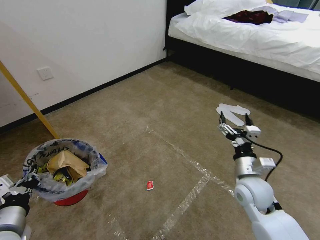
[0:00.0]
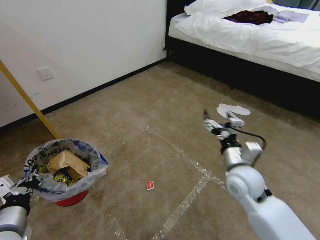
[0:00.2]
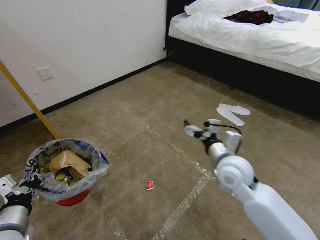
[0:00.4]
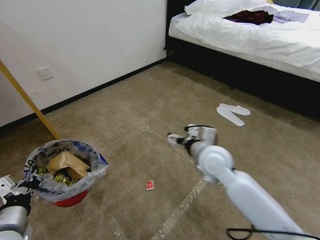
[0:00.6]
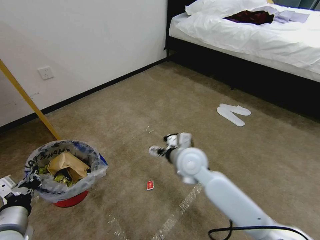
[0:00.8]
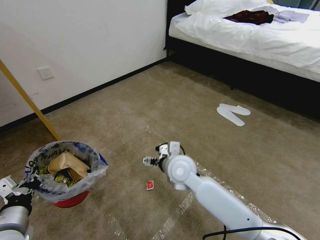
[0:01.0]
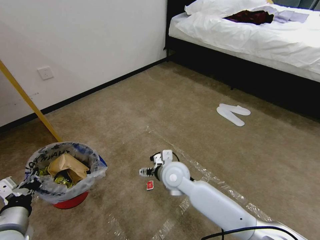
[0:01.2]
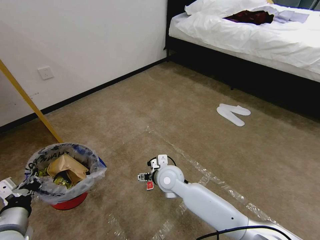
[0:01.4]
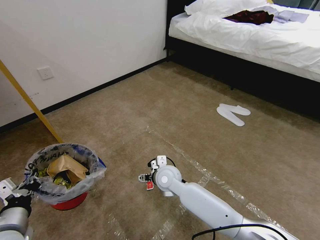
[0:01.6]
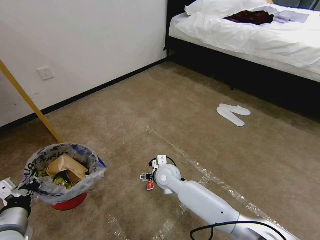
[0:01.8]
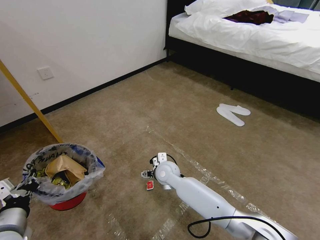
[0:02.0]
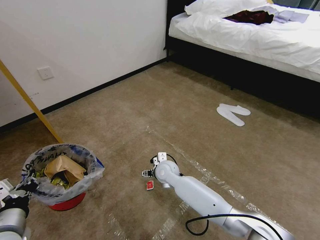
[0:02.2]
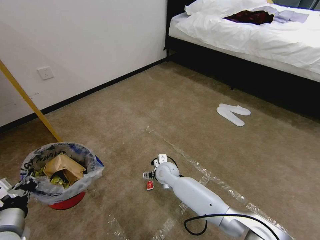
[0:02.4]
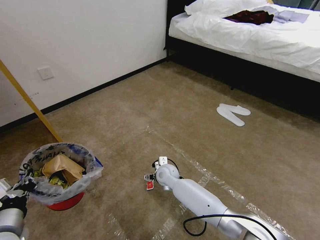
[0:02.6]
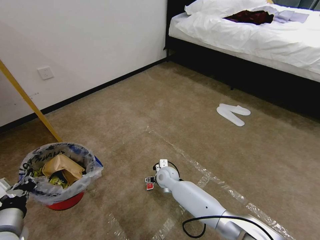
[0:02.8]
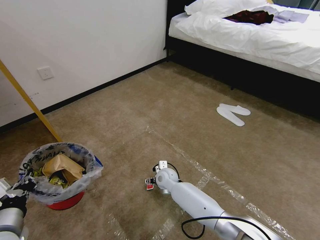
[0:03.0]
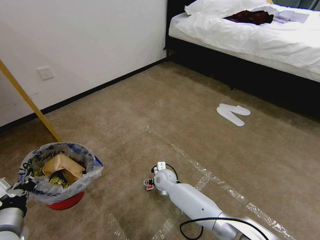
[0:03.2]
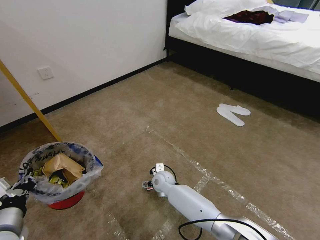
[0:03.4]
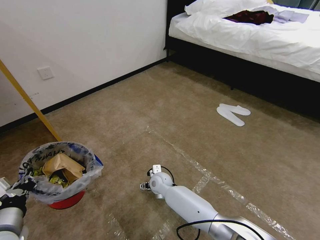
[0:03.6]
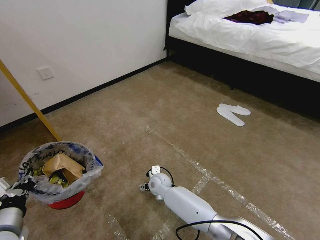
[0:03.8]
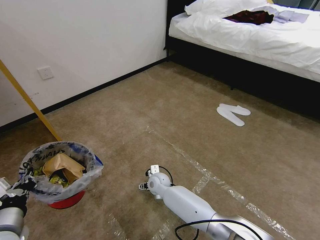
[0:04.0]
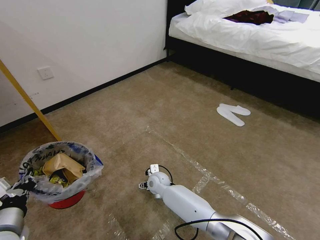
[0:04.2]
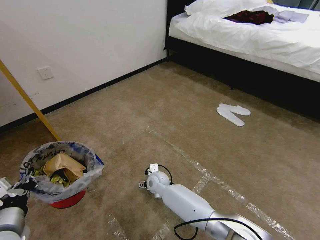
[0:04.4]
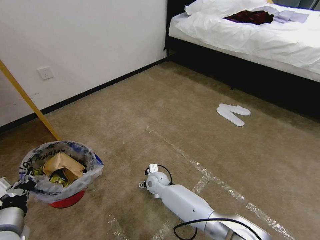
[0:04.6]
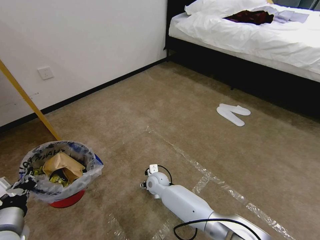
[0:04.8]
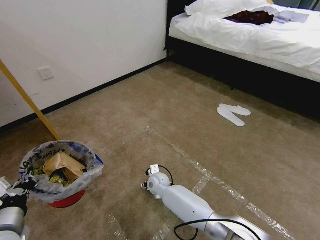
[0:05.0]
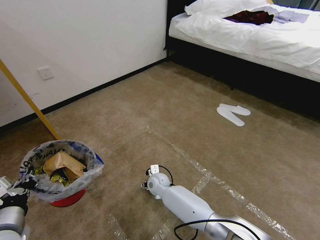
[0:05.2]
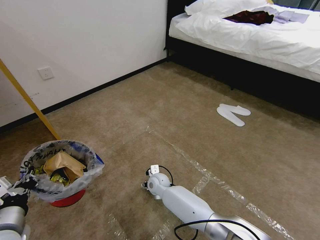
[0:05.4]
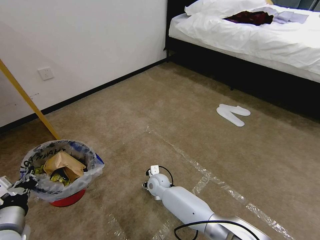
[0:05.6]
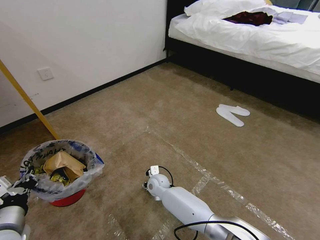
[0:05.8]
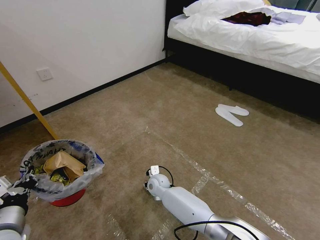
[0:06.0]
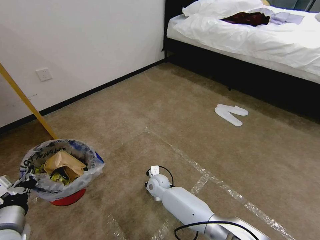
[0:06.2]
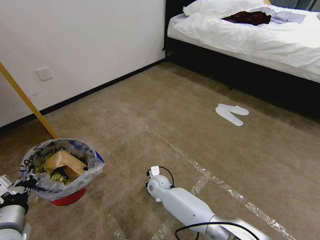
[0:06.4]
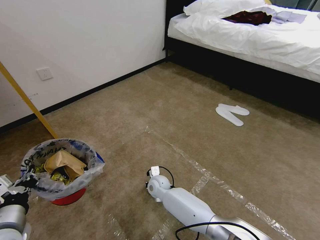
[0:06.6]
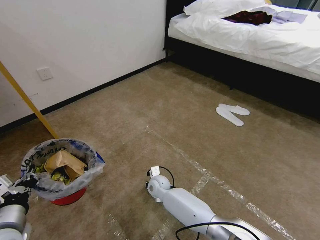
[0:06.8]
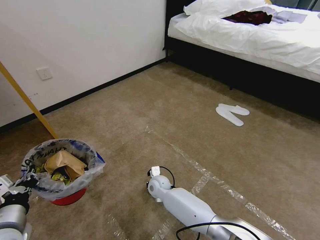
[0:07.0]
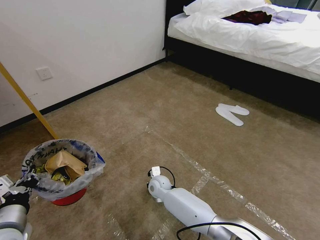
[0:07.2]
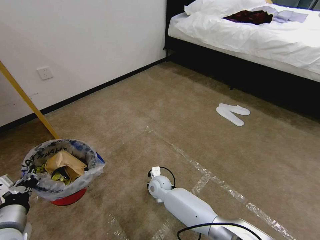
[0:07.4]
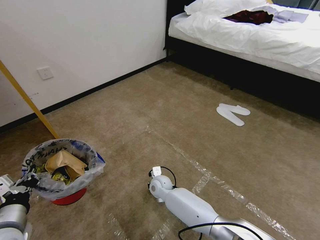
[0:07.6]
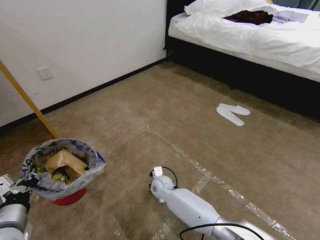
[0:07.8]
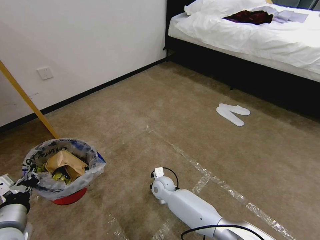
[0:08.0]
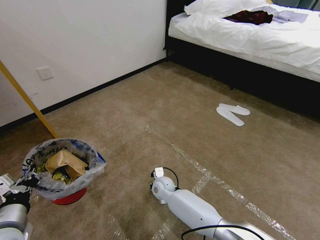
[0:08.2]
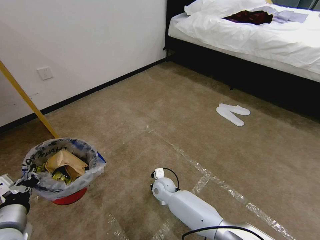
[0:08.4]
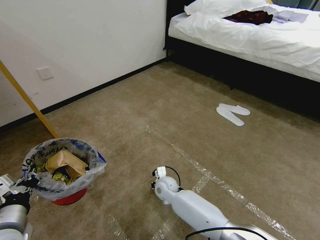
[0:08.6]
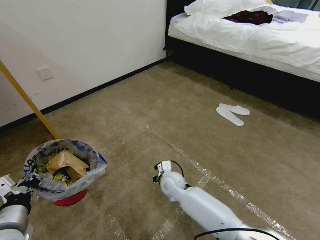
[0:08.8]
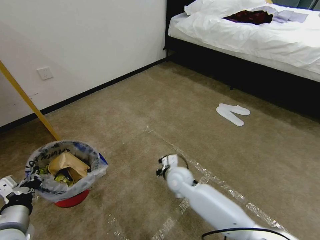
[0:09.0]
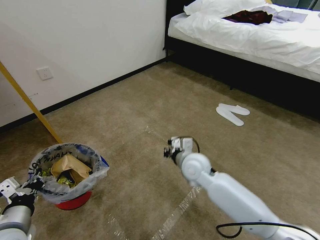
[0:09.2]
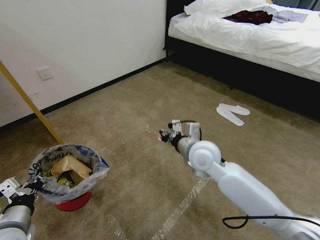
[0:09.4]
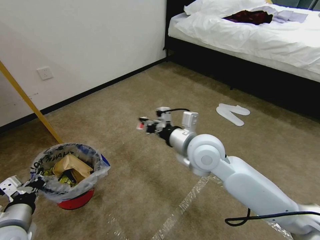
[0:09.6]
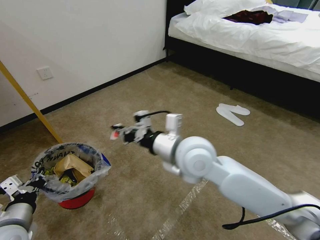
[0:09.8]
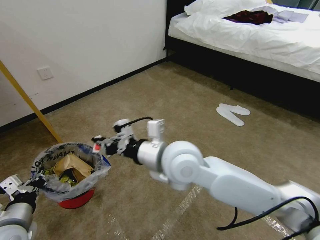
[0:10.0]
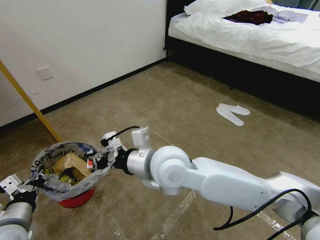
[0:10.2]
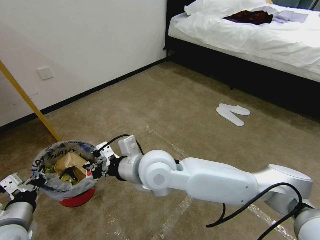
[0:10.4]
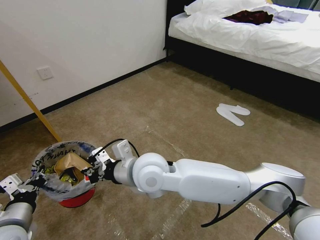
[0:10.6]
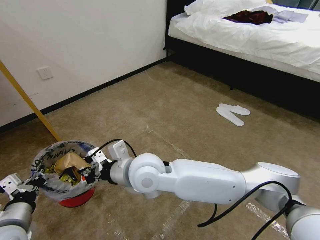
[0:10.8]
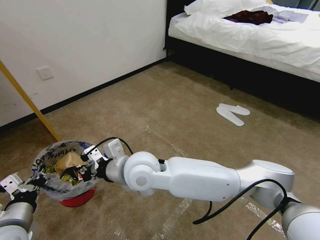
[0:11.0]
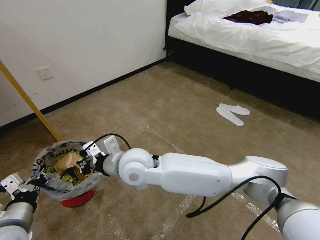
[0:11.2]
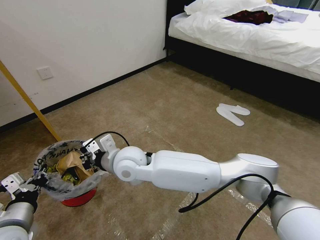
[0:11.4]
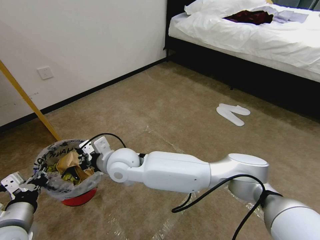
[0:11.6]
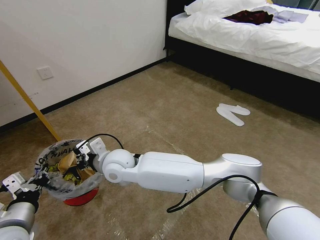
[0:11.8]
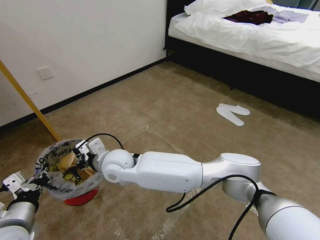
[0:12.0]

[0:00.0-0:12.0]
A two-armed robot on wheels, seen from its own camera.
Task of the whole recording: Pick up the trash bin and place the garbage on the floor into it.
0:00.0 to 0:01.6: The right gripper goes some 25 cm to the left.
0:01.6 to 0:03.0: The right gripper goes roughly 10 cm downward.
0:03.0 to 0:04.4: There are only small adjustments of the grippers.
0:04.4 to 0:06.0: The right gripper closes up.
0:06.0 to 0:07.6: The right gripper closes.
0:07.6 to 0:09.0: The right gripper is displaced upward by approximately 5 cm.
0:09.0 to 0:10.4: The right gripper heads upward, covering about 25 cm.
0:10.4 to 0:12.0: The right gripper travels to the left, downward and forward by about 15 cm.

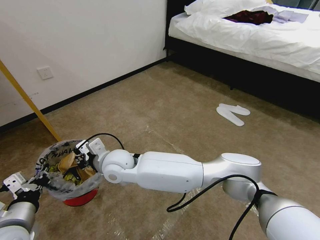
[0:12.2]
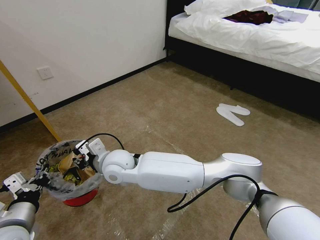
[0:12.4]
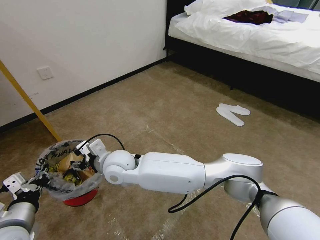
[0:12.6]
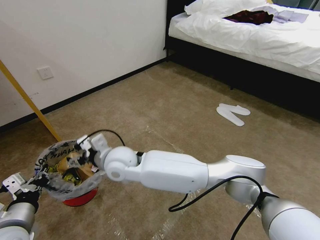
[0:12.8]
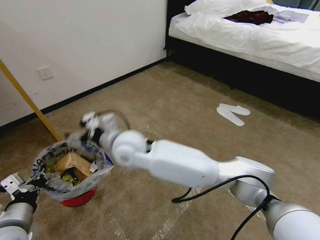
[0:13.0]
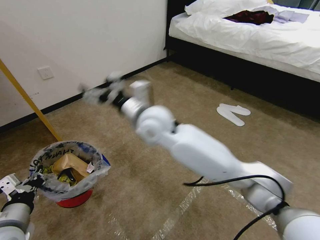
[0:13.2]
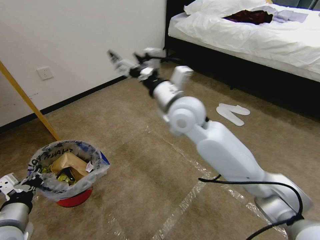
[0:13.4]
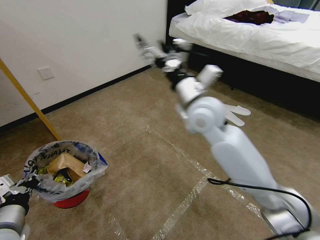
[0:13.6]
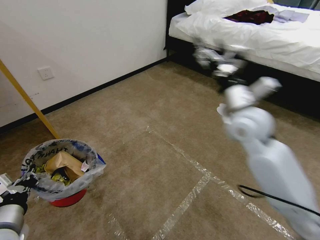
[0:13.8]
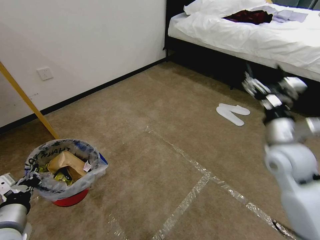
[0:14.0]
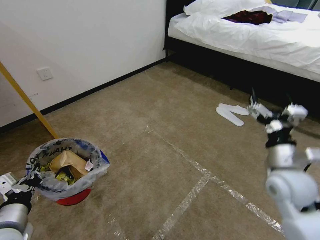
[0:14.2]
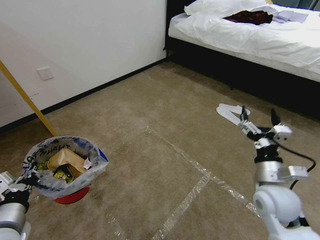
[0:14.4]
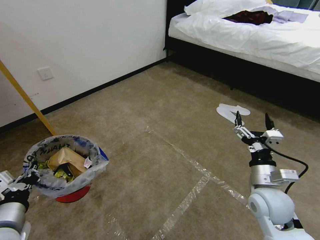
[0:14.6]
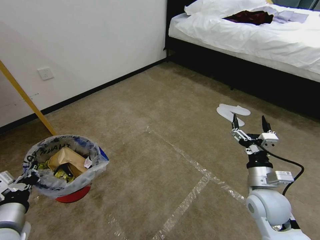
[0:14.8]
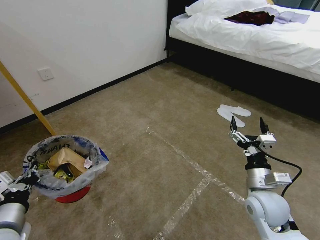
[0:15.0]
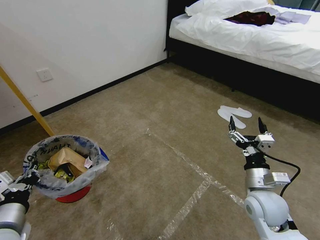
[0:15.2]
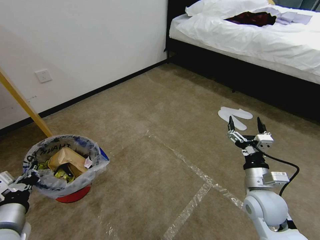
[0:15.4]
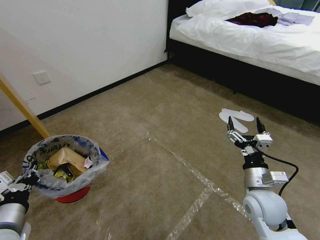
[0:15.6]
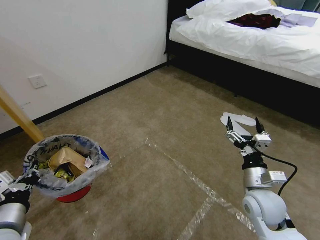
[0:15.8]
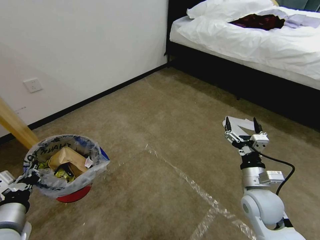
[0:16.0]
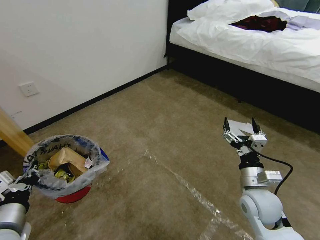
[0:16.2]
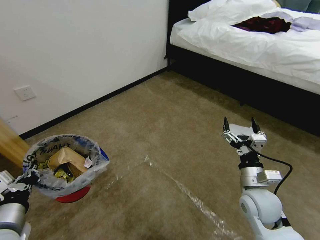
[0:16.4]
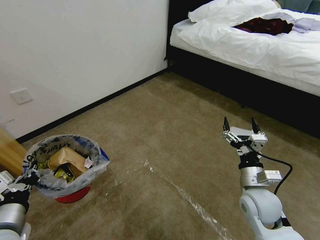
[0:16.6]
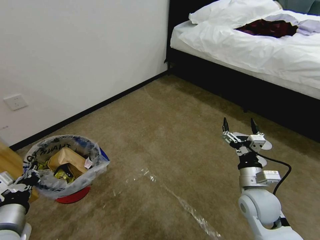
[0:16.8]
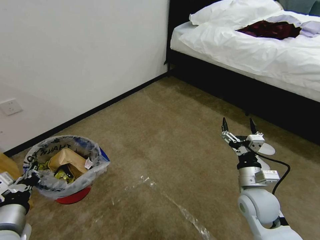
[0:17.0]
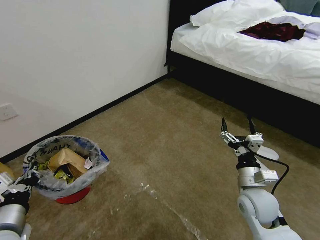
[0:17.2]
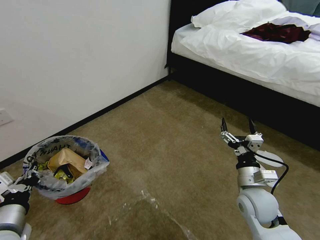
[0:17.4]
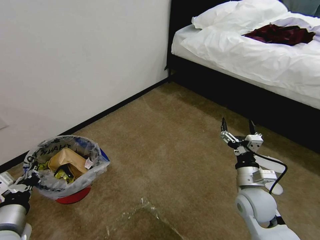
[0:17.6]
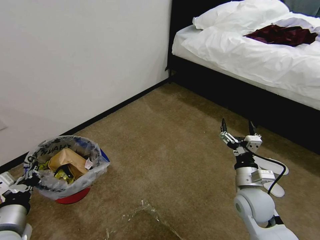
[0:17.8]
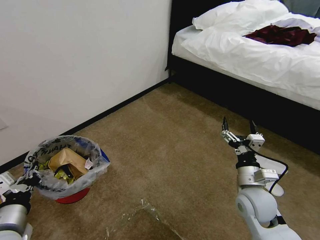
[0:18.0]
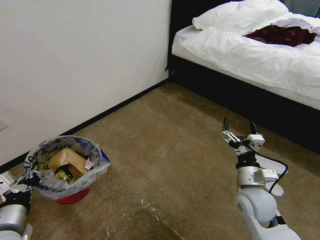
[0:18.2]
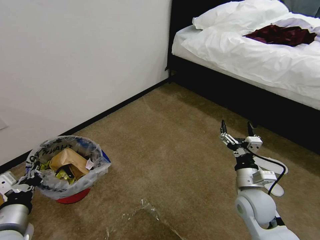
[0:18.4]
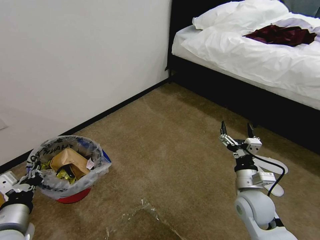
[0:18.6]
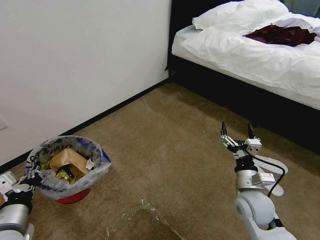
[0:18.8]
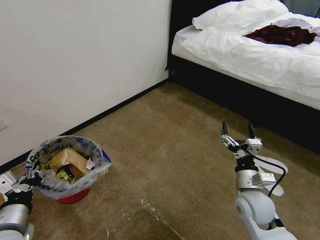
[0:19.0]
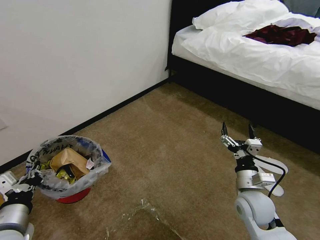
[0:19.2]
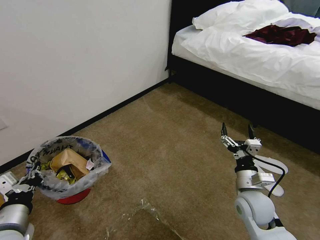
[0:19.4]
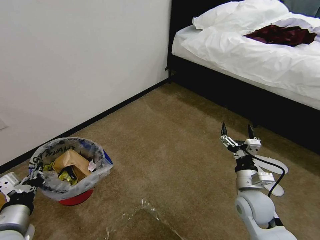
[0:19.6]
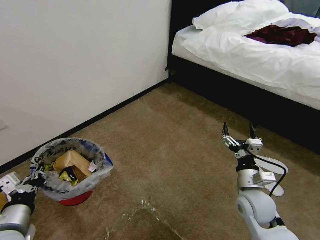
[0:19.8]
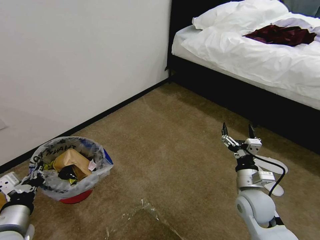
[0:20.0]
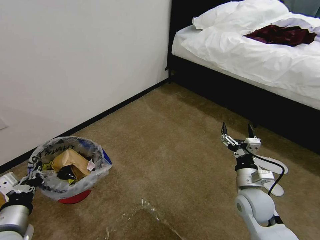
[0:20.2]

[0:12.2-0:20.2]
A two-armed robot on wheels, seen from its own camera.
Task of the whole recording: Pick up the trash bin and place the garbage on the floor into it.
0:12.2 to 0:13.8: The right gripper moves to the right, about 35 cm, and opens its fingers.
0:13.8 to 0:15.4: The right gripper heads downward and backward, covering about 25 cm.
0:18.6 to 0:20.2: Neither gripper changes place.
